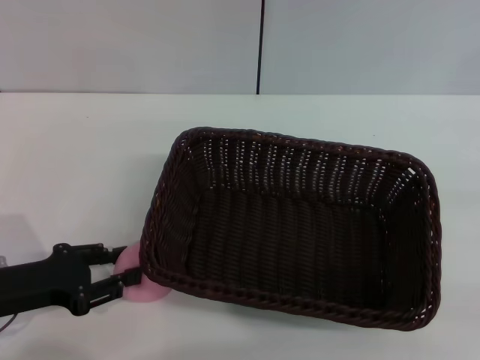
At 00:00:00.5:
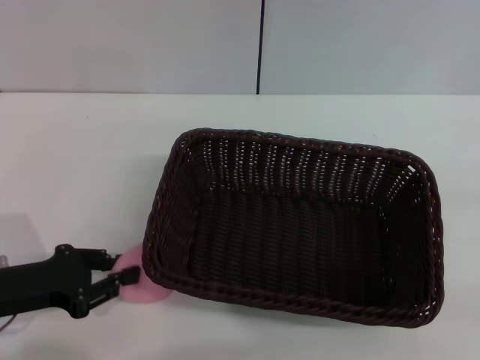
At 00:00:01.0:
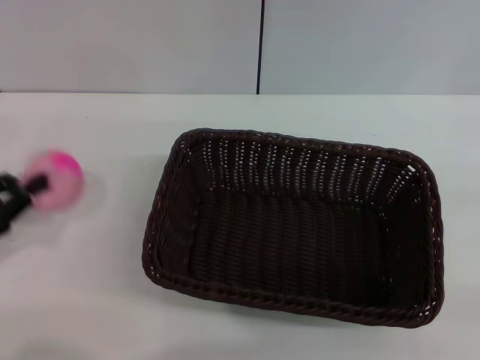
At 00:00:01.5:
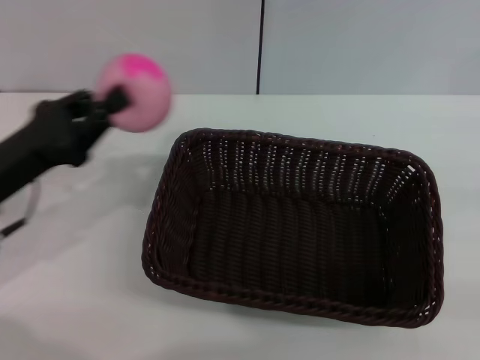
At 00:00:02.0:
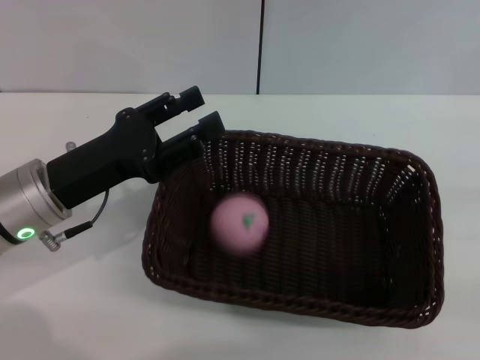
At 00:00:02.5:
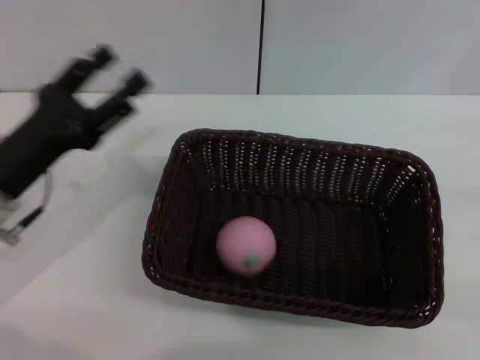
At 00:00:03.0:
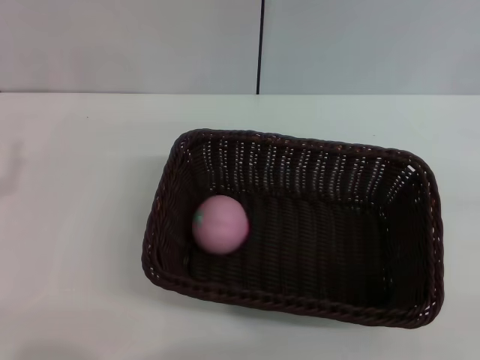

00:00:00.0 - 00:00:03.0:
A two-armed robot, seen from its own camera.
Step, 00:00:01.5 - 00:00:02.0: Place the peach into the basket with the left gripper.
00:00:00.0 - 00:00:01.5: The left gripper is displaced upward by roughly 5 cm, goes to the left and returns, about 5 cm each way, and closes its fingers.
00:00:01.5 - 00:00:03.0: The left gripper travels backward by some 5 cm, and opens up.
